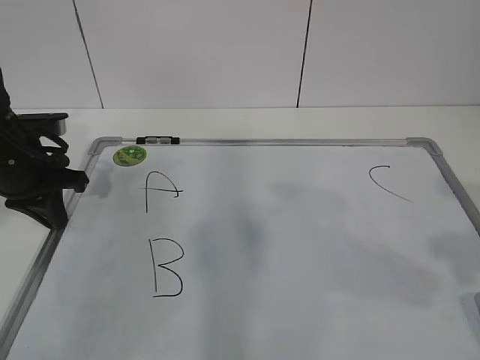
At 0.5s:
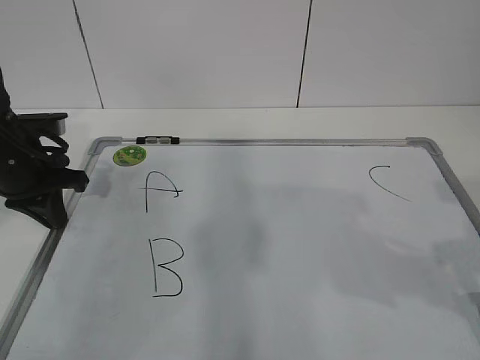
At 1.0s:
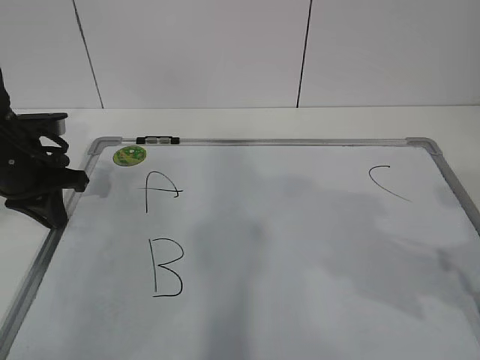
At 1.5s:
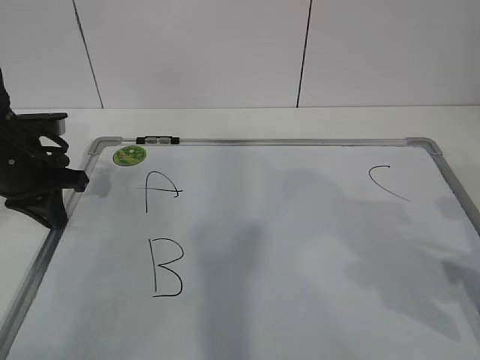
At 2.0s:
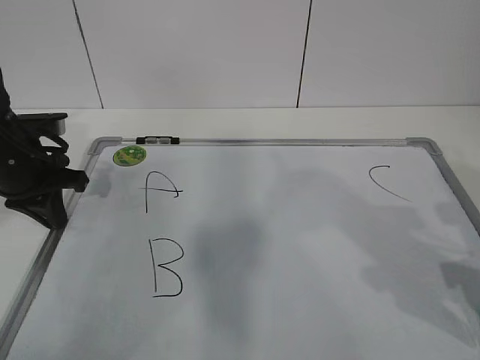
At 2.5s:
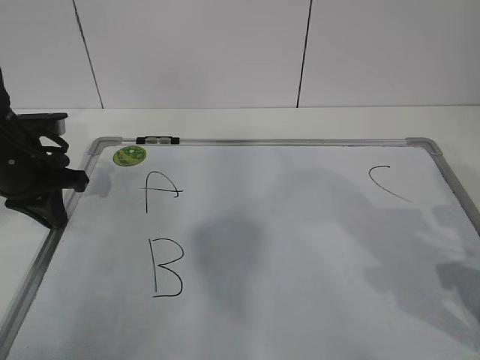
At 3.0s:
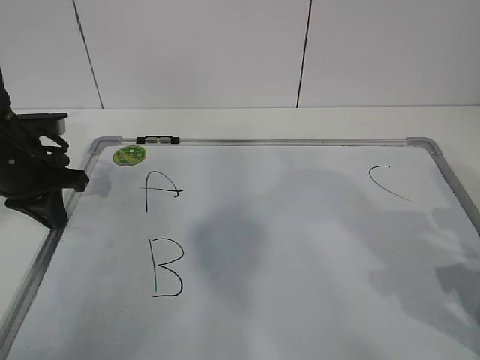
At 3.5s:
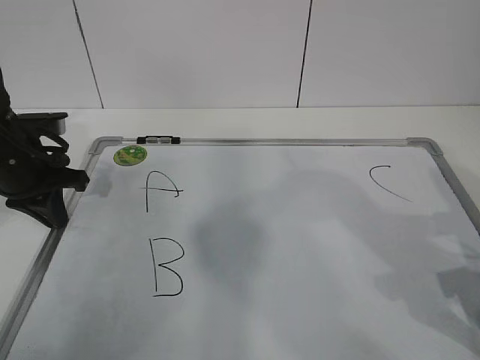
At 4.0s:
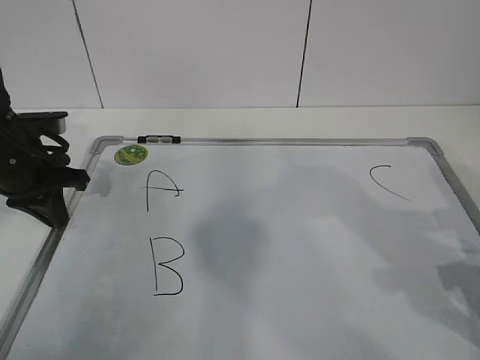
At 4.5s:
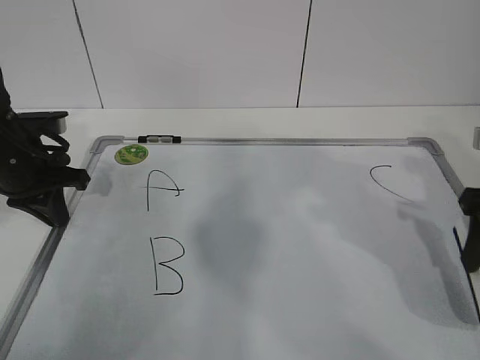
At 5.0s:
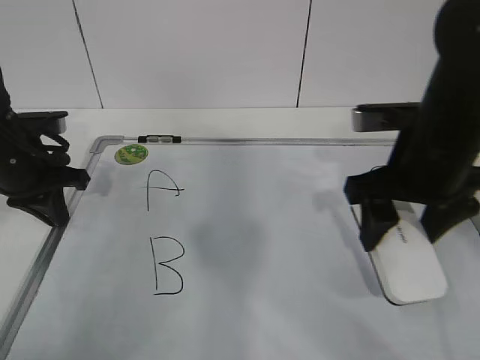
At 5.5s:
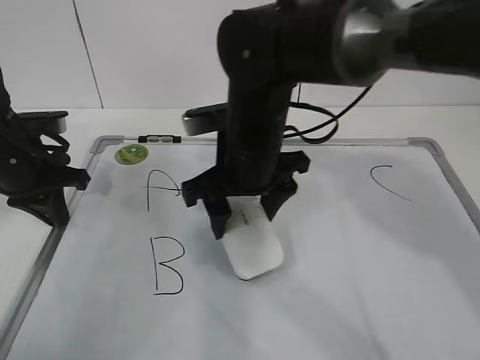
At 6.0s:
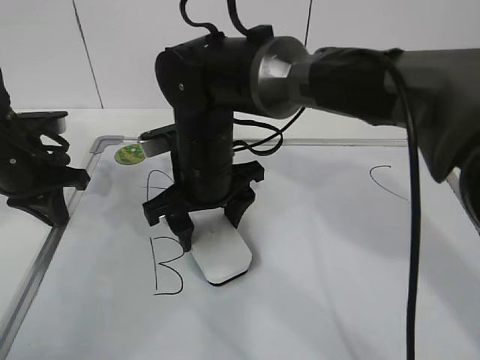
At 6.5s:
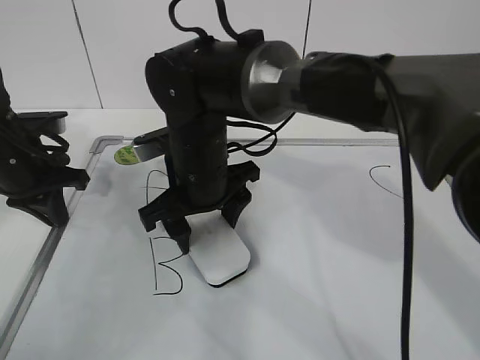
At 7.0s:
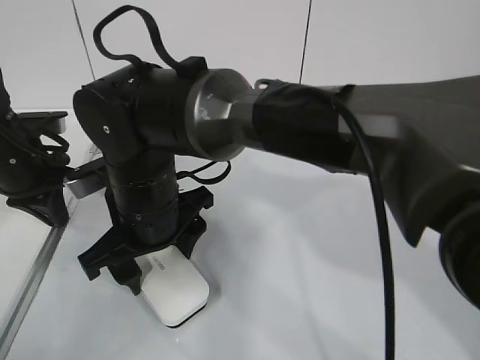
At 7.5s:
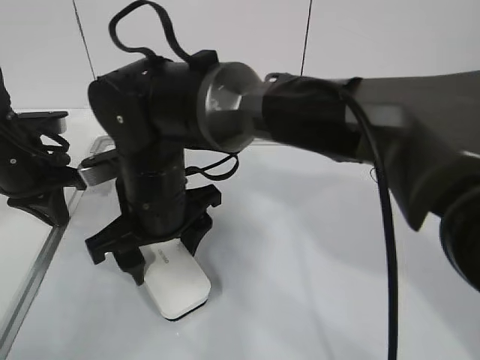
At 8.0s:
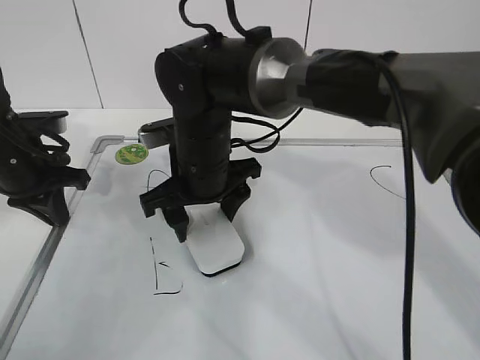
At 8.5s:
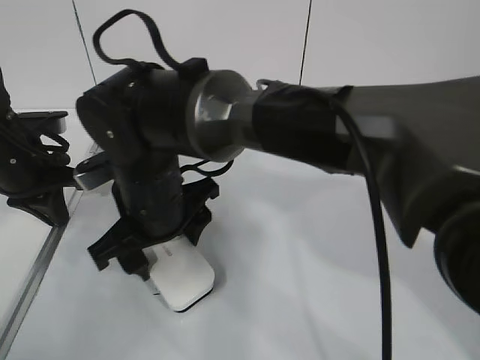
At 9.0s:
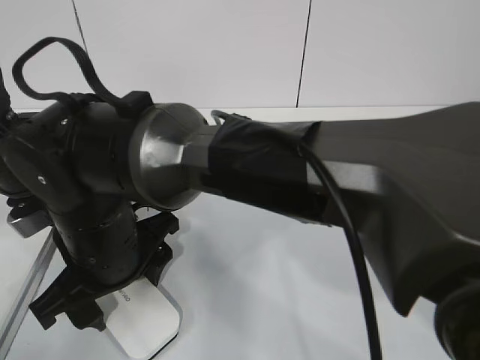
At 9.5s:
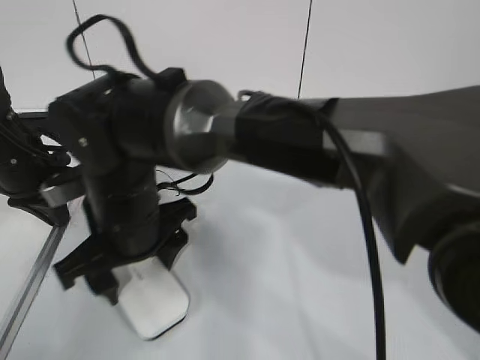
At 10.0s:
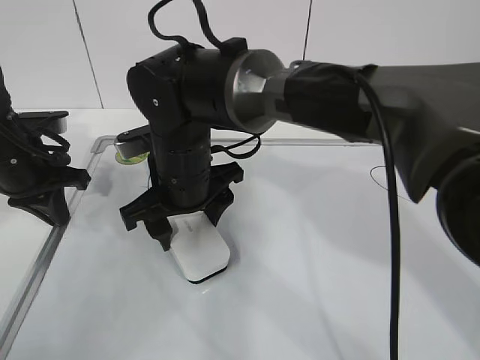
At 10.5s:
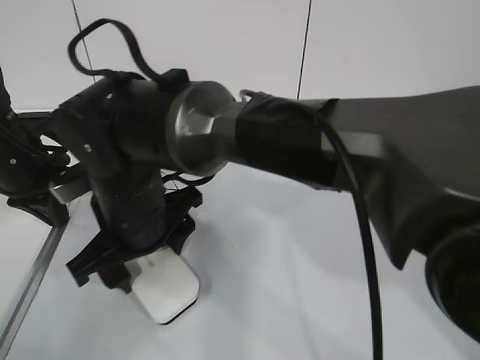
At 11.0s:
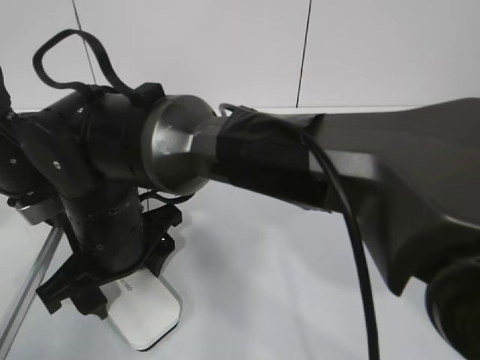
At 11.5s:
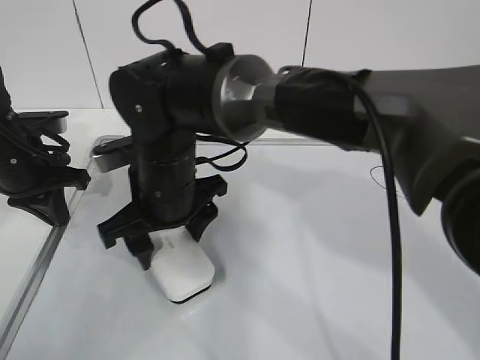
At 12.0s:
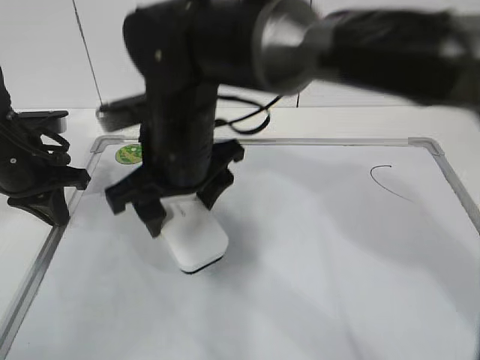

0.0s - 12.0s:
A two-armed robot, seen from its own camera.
Task of the whole recording: pick up the eraser on the blackboard and erase the letter "B".
Step, 2.5s - 8.5s: Erase the letter B with your right hand.
0.0s - 2.0s: The right gripper shifts about 15 cm downward and forward.
4.0s - 6.0s: The right gripper heads to the left, covering approximately 35 cm.
8.0s - 10.0s: The right gripper reaches approximately 10 cm backward, then returns.
10.0s - 12.0s: The right gripper moves upward, approximately 5 cm, and travels backward and back again, approximately 10 cm each way.

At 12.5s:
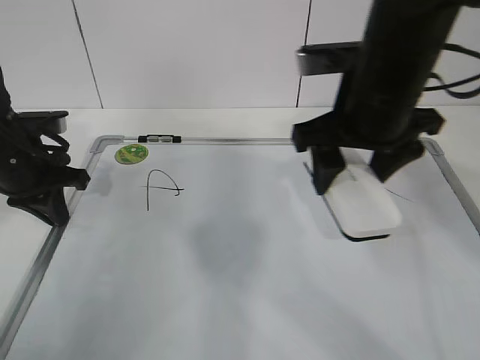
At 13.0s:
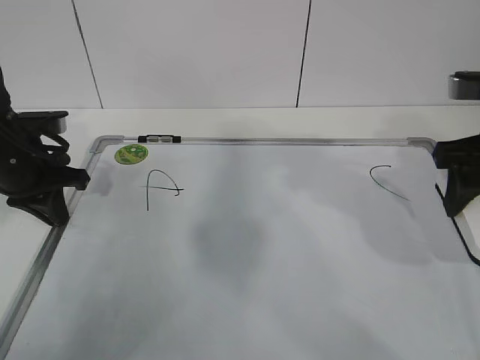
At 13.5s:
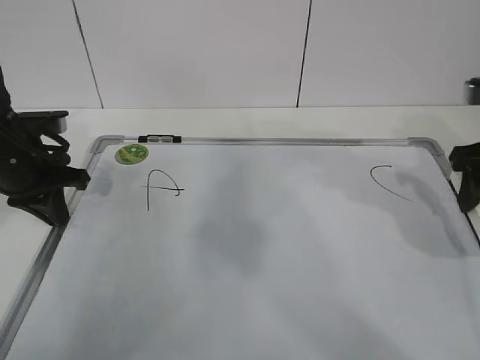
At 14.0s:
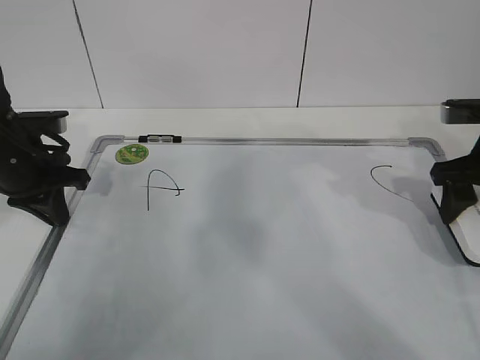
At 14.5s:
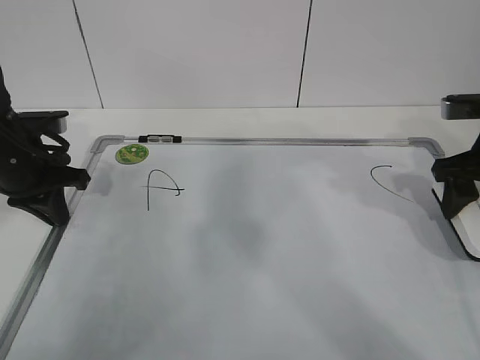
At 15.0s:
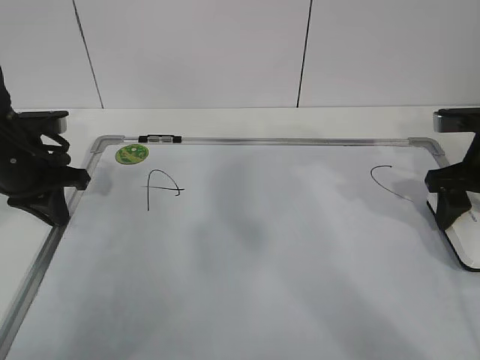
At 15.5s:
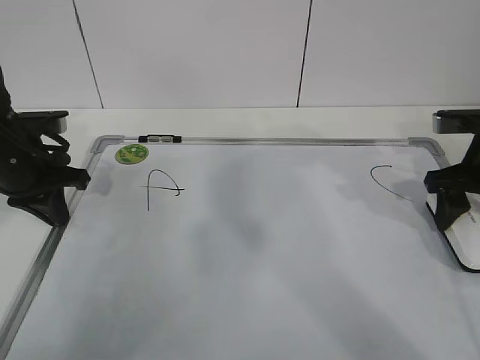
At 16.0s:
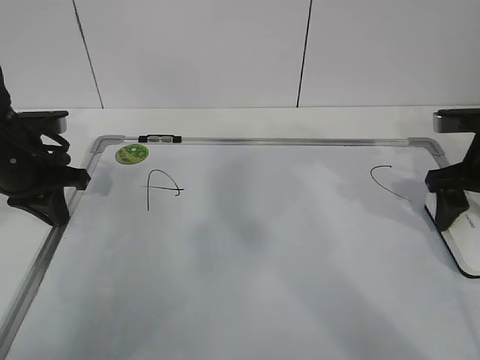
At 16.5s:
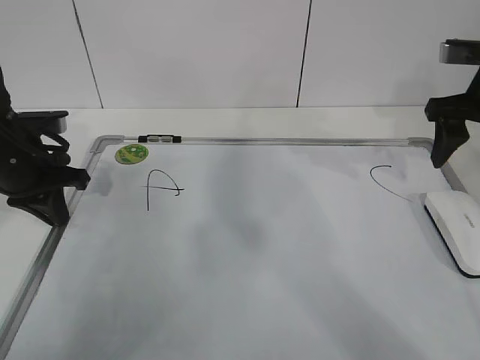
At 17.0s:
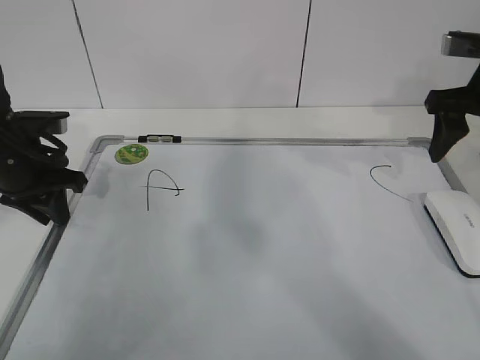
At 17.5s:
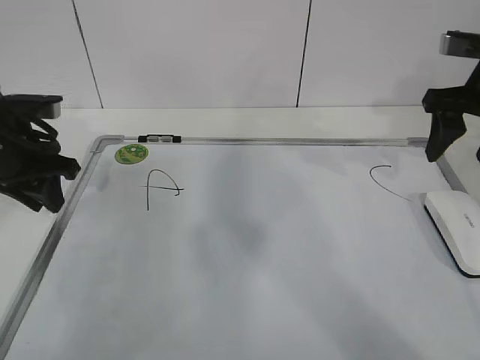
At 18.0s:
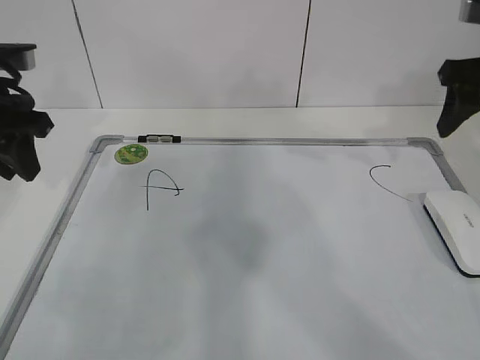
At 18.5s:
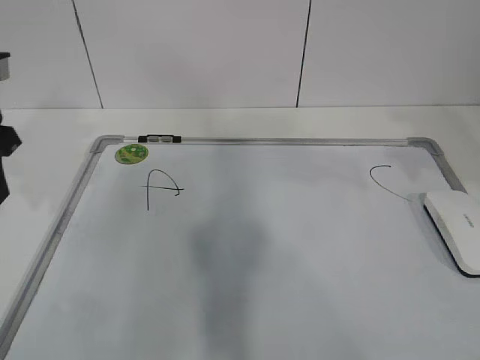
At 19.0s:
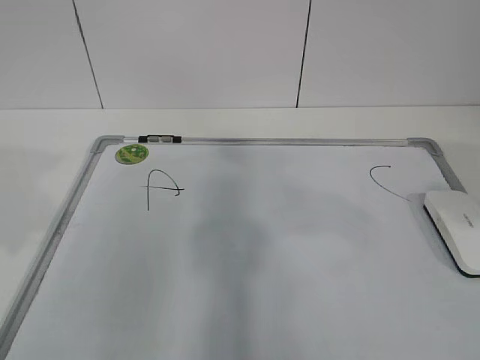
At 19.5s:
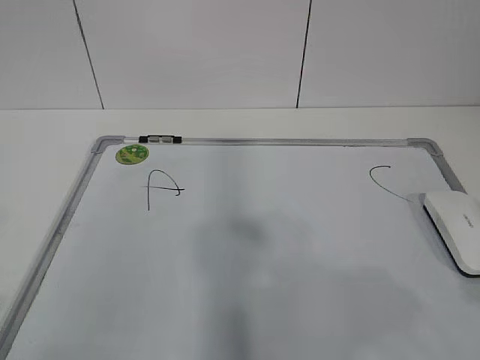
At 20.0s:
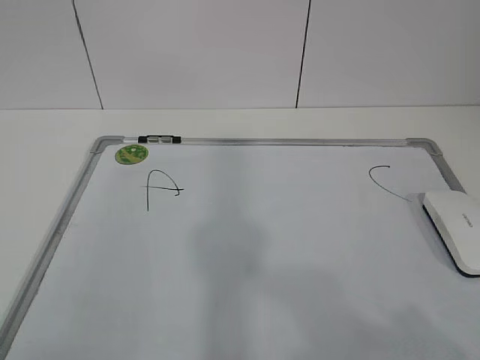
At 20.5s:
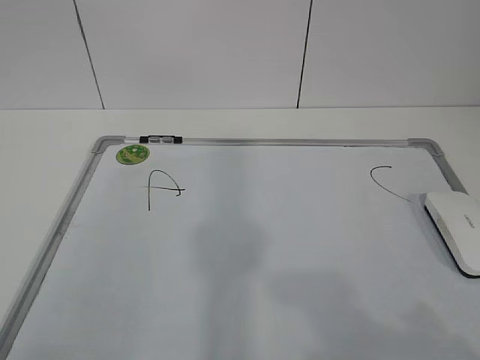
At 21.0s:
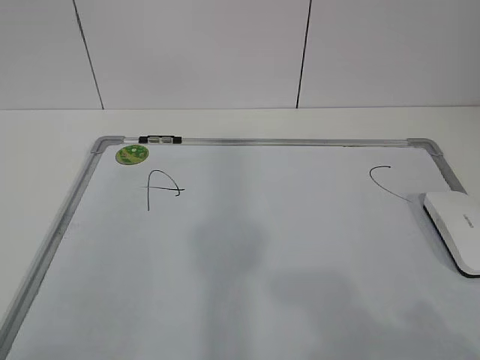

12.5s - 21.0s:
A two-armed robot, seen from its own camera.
Task of the whole recording: pick up the eraser on the blackboard and erase the letter "B".
12.5s - 14.5s: The right gripper shifts about 20 cm to the right.
14.5s - 16.5s: The right gripper travels upward by some 5 cm.
16.5s - 19.0s: Both grippers travel together backward and upward, roughly 25 cm. The left gripper opens its fingers.
19.0s - 21.0s: The right gripper is displaced backward and downward by roughly 15 cm.

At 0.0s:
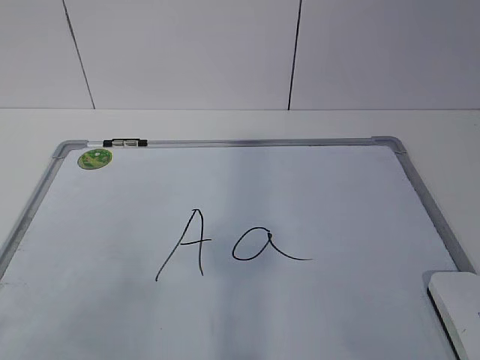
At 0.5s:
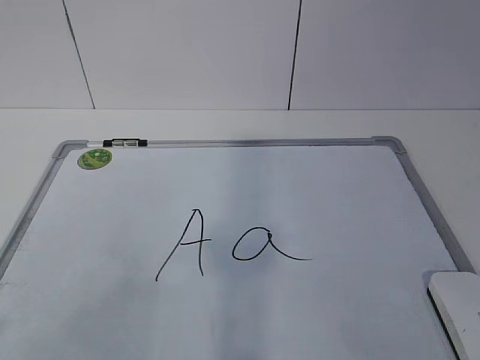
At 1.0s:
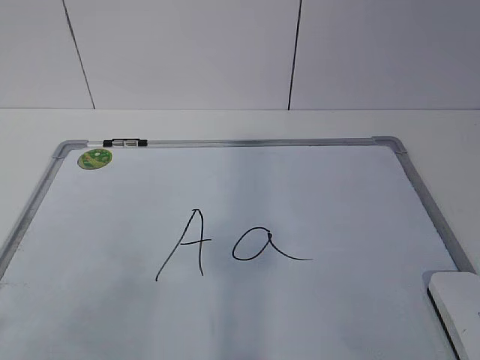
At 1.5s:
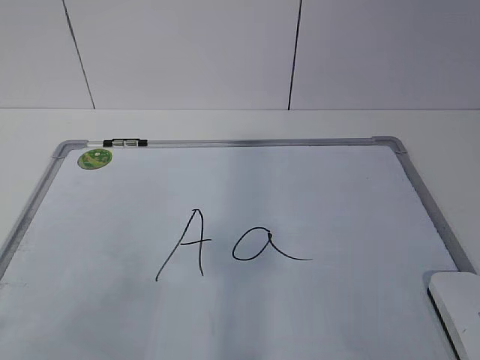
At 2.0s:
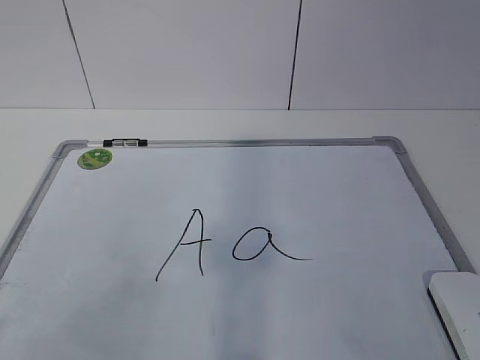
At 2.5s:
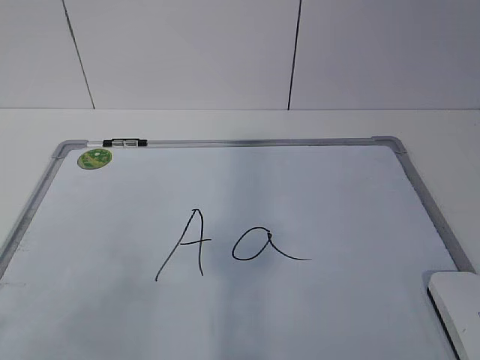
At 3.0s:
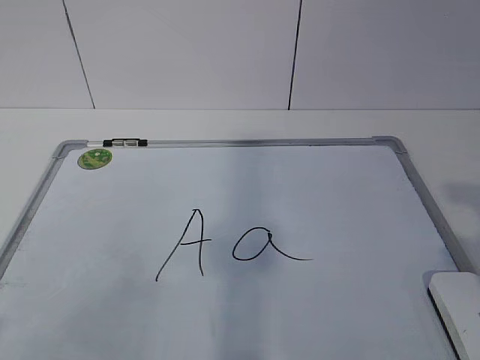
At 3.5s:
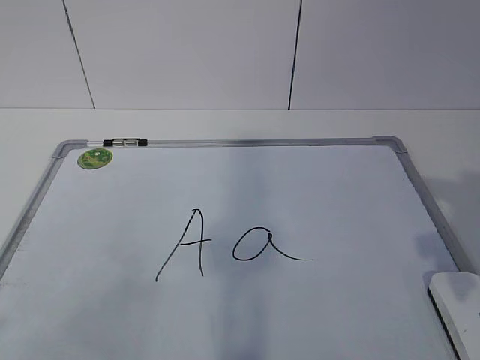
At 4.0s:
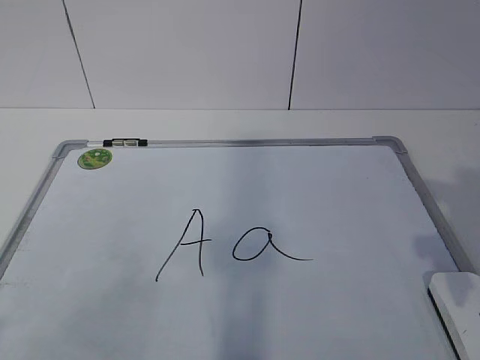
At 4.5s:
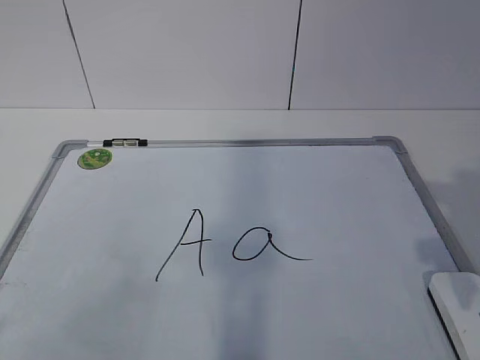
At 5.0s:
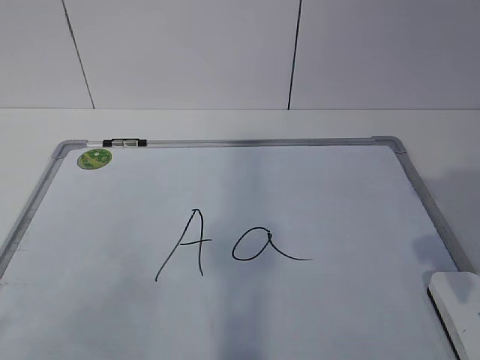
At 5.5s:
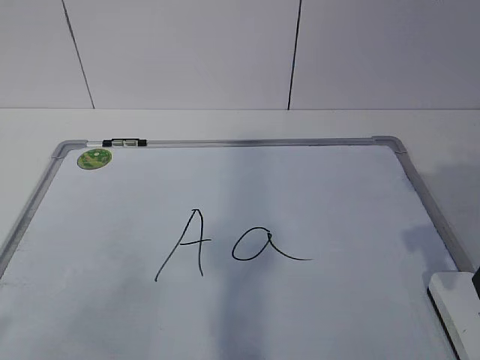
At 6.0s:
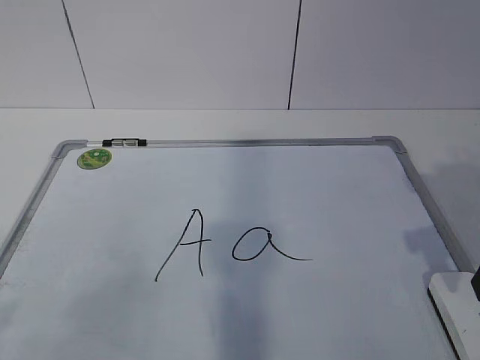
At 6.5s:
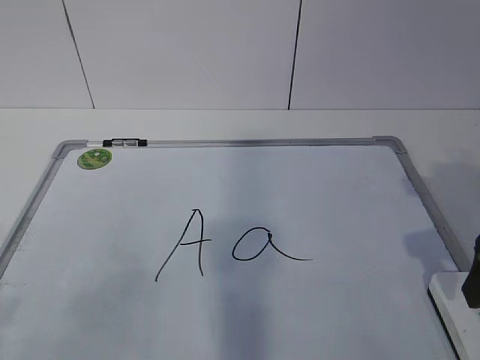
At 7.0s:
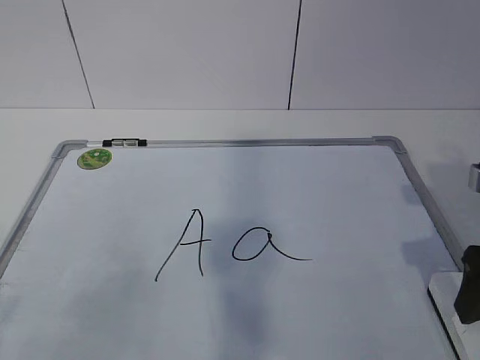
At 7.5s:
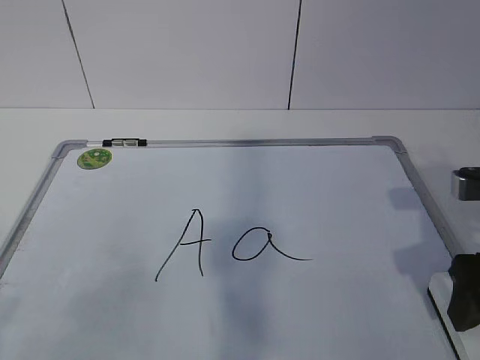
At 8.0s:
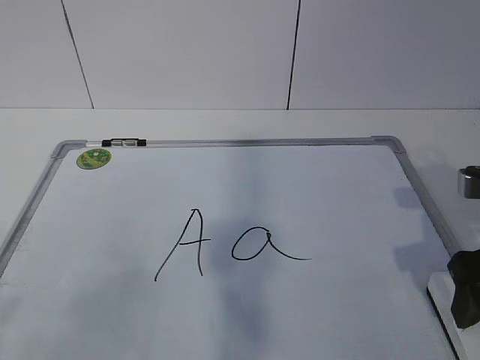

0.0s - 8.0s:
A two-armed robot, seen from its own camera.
Task of the whole recording: pick up the eraser on the blackboard and erase the letter "a".
2.0s - 4.0s: The right gripper goes approximately 15 cm forward.
6.0s - 8.0s: The right gripper opens up.
